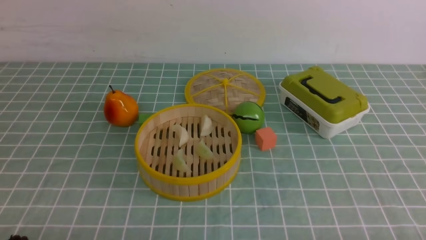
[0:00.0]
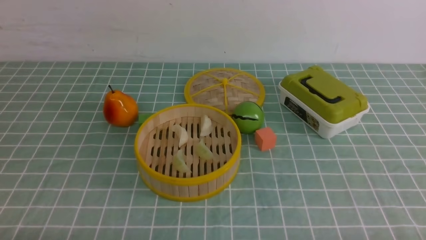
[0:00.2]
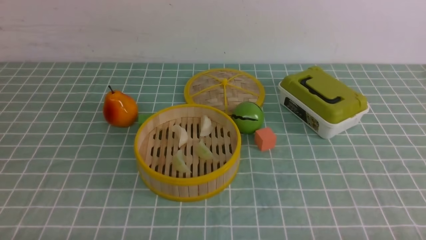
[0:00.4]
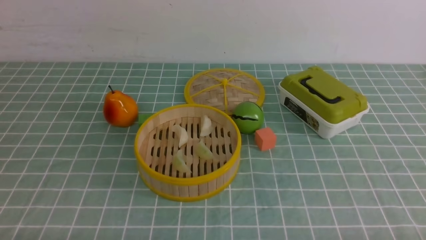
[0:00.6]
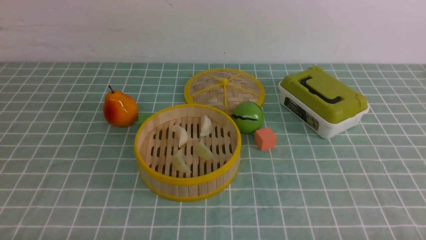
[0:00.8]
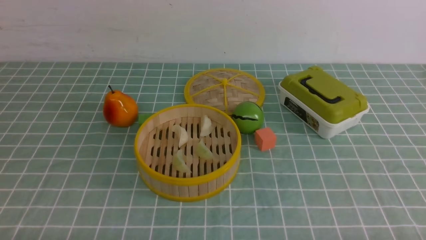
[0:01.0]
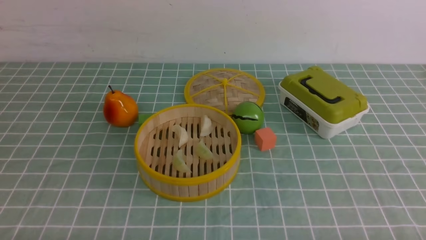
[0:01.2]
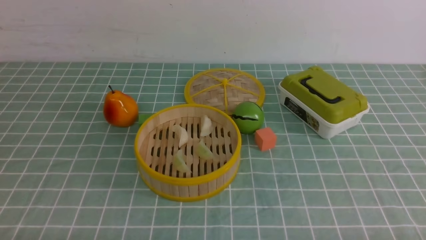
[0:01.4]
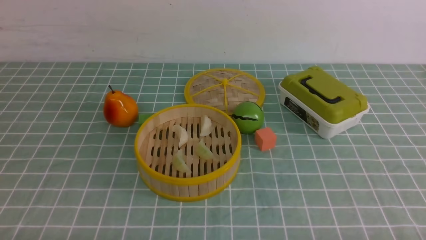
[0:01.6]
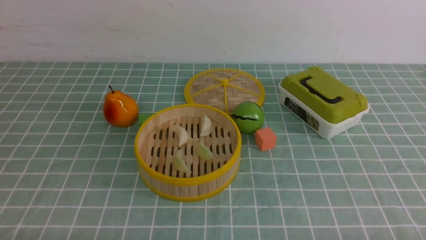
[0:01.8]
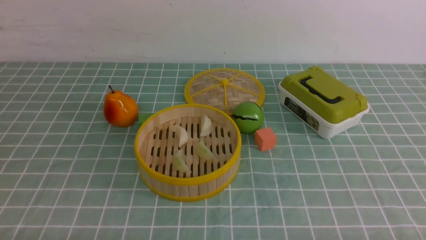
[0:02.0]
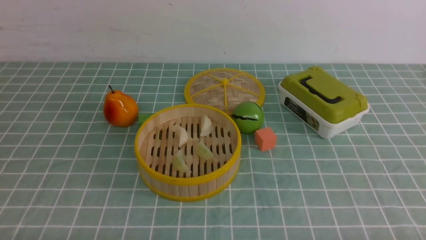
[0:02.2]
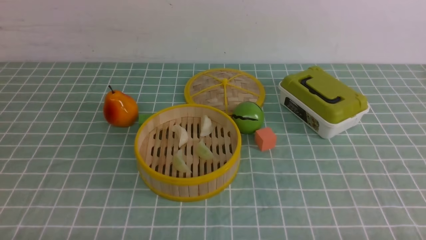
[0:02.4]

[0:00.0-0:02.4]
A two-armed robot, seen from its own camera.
Task of the whole recording: put the dumplings into the steamer on the table with the blue tablecloth.
0:01.2 to 0:02.4: The two grippers keep their place.
